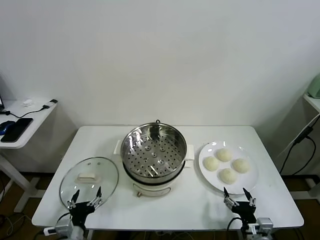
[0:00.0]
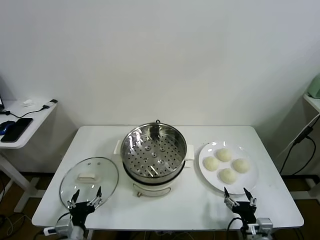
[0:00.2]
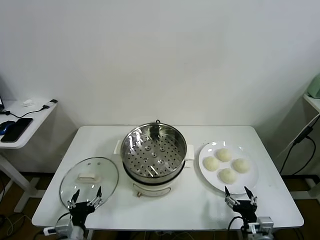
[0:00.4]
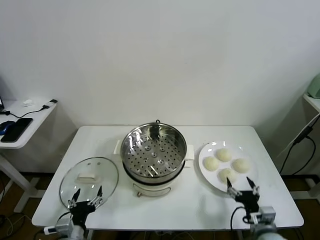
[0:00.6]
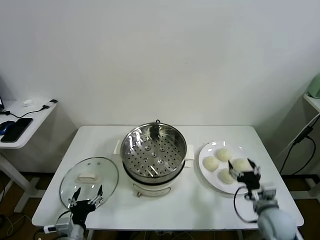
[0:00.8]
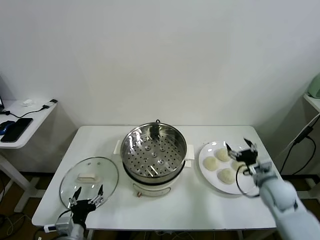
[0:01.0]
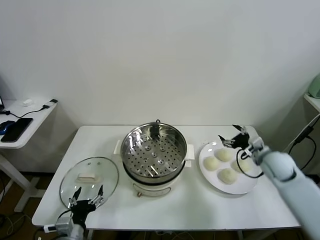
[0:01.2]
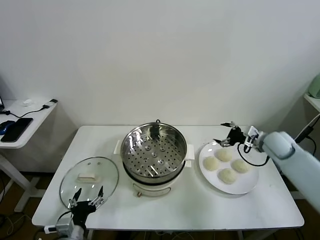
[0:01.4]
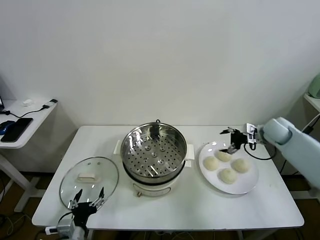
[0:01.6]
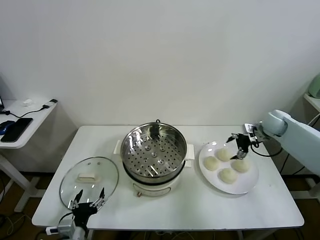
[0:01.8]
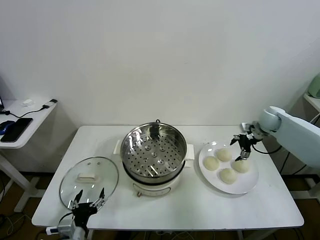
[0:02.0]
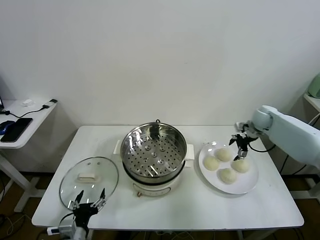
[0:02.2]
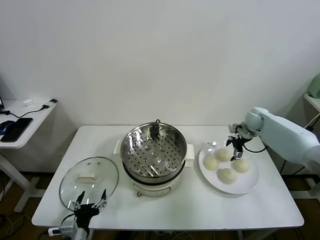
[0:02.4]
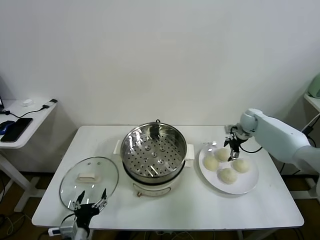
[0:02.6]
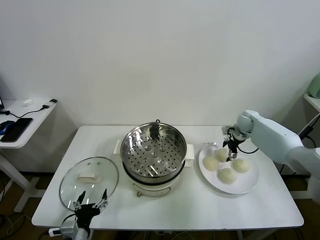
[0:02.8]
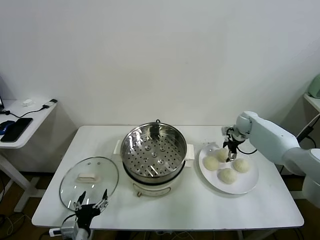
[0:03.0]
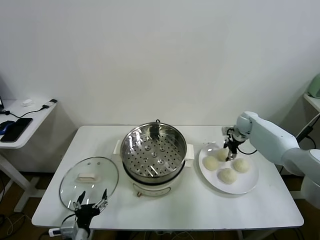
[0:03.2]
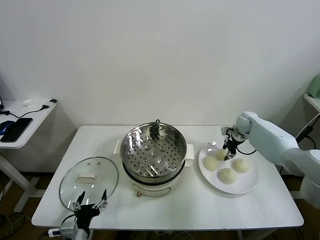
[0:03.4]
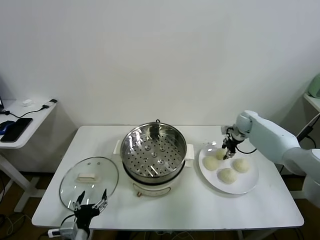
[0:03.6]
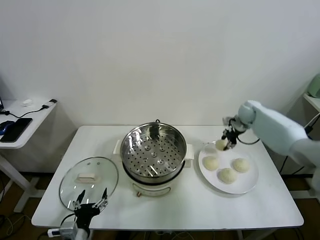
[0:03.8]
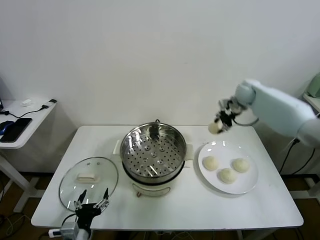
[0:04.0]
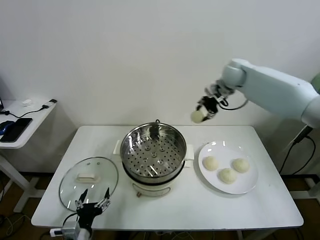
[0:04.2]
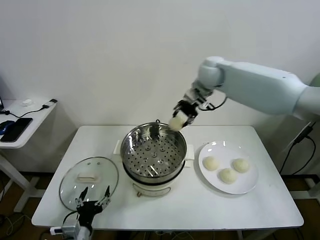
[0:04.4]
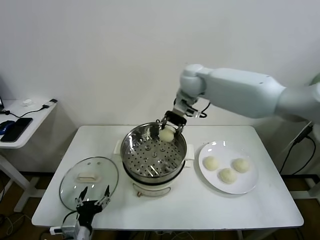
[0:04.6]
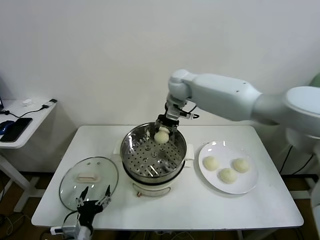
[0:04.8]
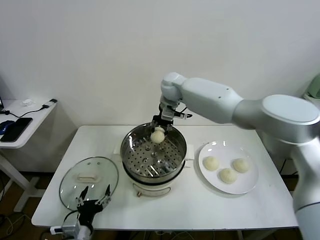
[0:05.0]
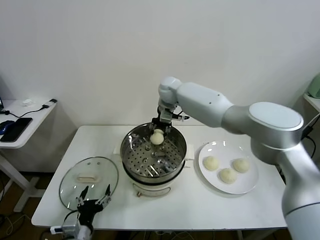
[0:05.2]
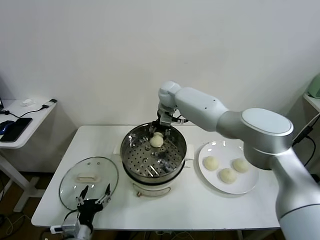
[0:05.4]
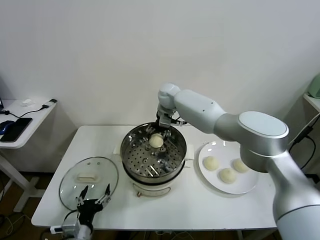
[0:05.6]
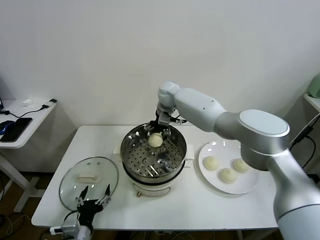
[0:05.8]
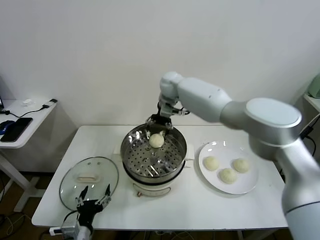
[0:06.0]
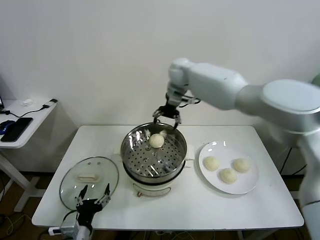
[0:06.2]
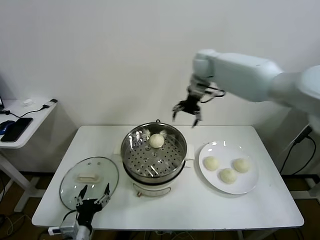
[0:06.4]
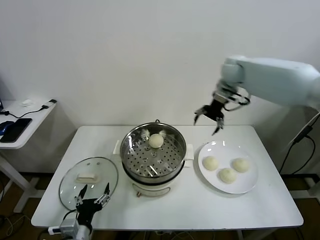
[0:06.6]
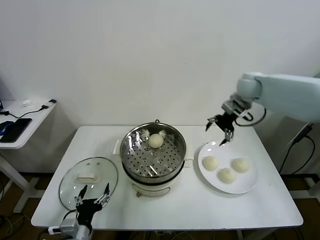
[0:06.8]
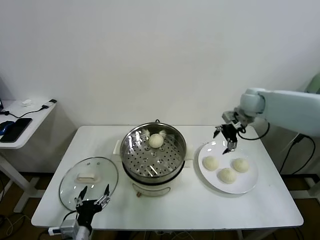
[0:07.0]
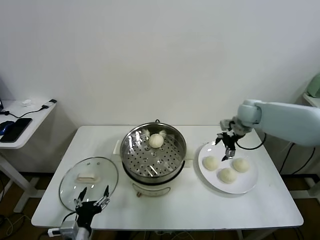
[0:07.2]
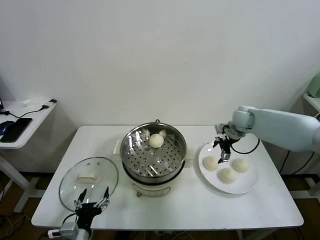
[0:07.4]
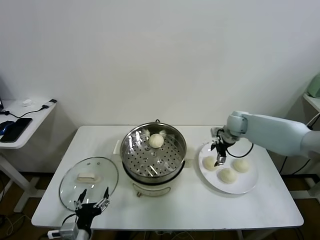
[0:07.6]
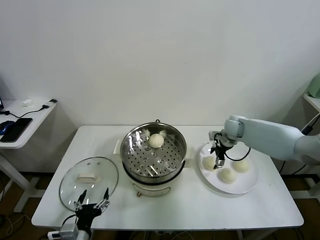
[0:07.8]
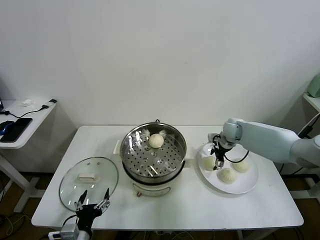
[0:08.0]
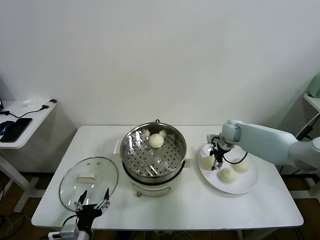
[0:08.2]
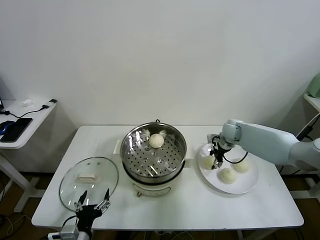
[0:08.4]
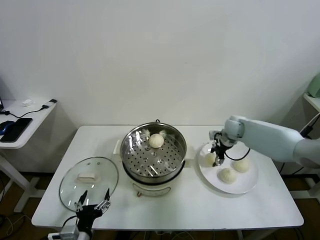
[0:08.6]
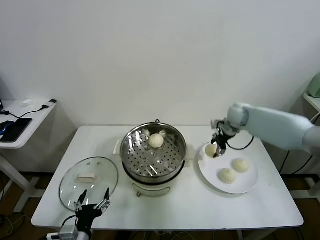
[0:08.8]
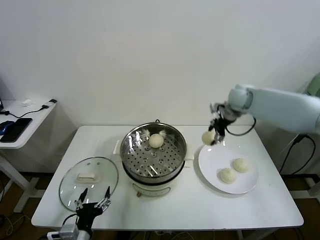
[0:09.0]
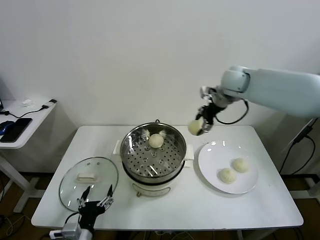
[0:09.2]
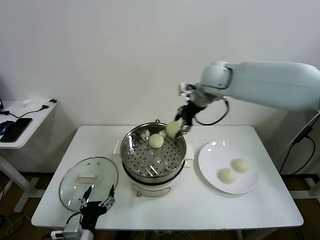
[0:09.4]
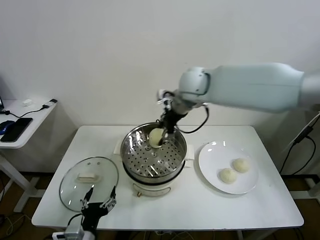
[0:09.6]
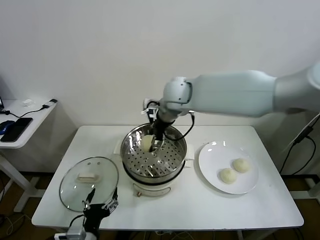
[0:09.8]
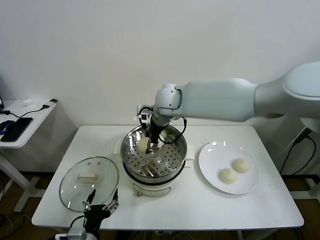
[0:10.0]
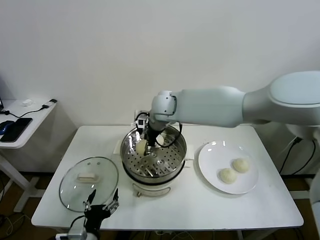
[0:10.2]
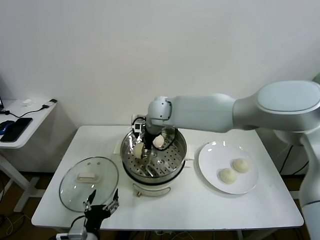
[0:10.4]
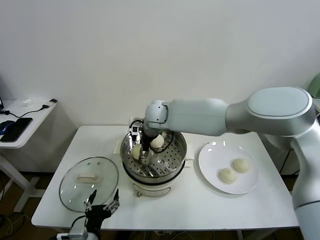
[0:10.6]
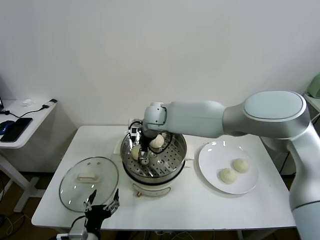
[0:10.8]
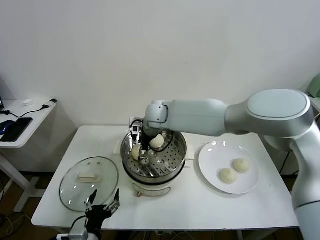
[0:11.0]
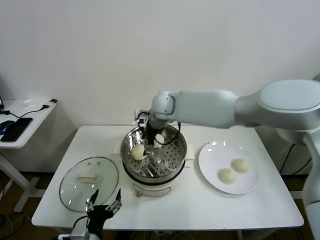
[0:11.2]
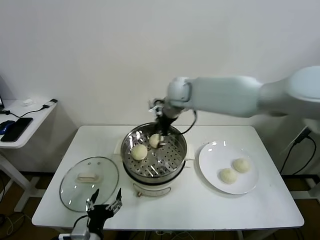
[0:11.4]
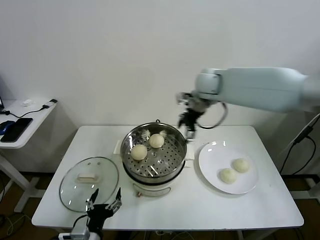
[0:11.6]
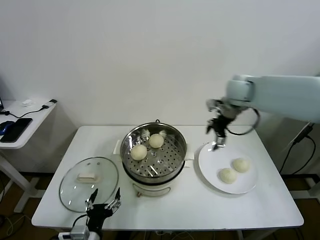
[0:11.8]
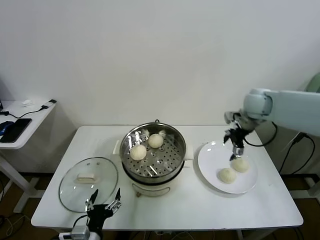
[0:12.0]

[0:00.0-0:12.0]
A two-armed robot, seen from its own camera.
Task of the whole recording: take steamed baozi put them in steamer.
Step, 0:00.0 to 0:03.2: Grasp the baozi in the plate with right gripper.
Step, 0:03.4 to 0:05.6: Place the baozi on the steamer with right gripper.
Step, 0:05.8 to 0:08.2: Grasp the baozi in the plate with right gripper.
Step, 0:08.4 to 0:10.8: Place the baozi on the steamer with right gripper.
0:01.6 to 0:03.0: The right gripper is displaced forward, downward and to the left by roughly 10 cm, and closes its fingers.
0:03.0 to 0:04.4: The right gripper heads to the left and upward, covering approximately 35 cm, and closes.
0:04.4 to 0:06.0: The right gripper is displaced forward by approximately 5 cm, goes downward and returns, roughly 10 cm each way, and opens its fingers.
0:06.0 to 0:07.6: The right gripper heads to the right and downward, covering about 30 cm.
0:07.6 to 0:09.0: The right gripper goes approximately 20 cm upward, and closes up.
0:09.0 to 0:10.4: The right gripper moves to the left, approximately 25 cm.
0:10.4 to 0:12.0: The right gripper goes approximately 35 cm to the right, and opens.

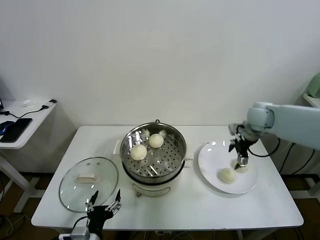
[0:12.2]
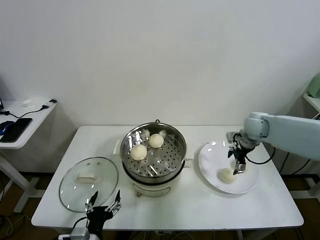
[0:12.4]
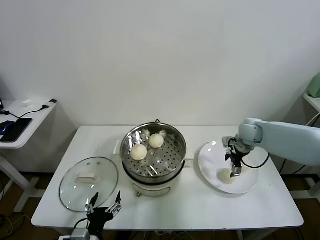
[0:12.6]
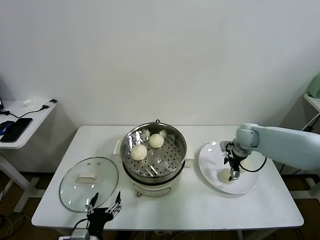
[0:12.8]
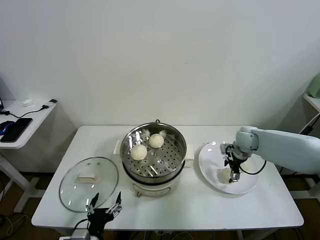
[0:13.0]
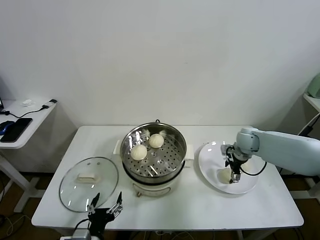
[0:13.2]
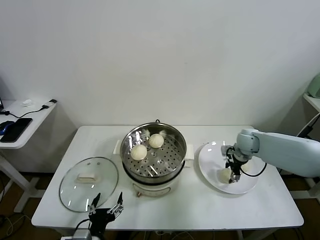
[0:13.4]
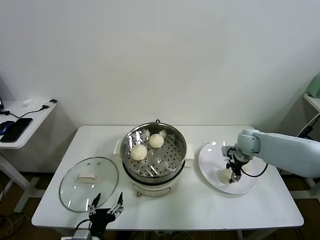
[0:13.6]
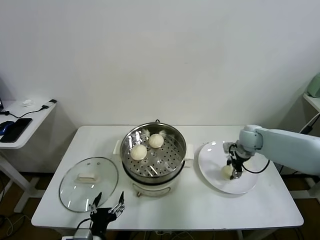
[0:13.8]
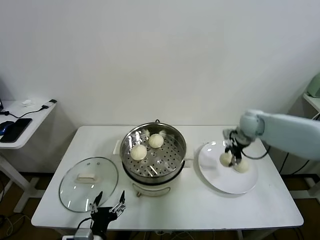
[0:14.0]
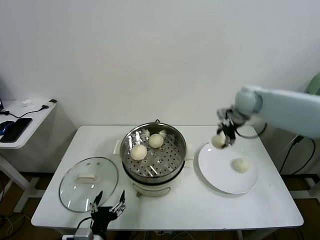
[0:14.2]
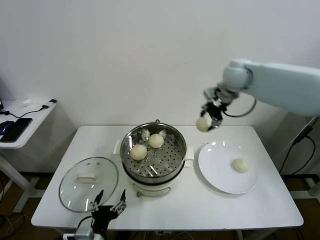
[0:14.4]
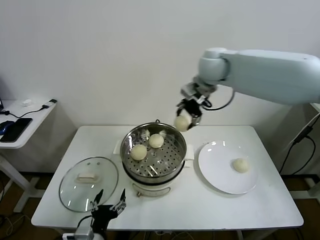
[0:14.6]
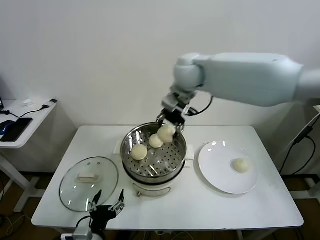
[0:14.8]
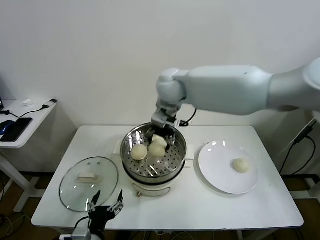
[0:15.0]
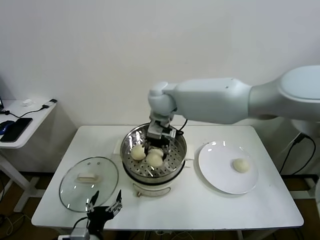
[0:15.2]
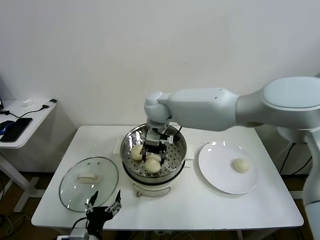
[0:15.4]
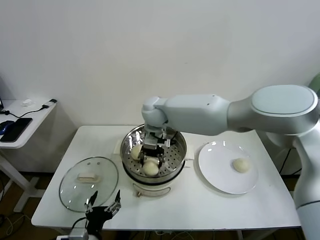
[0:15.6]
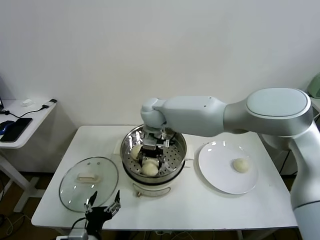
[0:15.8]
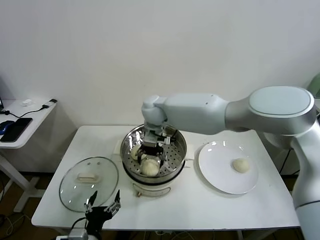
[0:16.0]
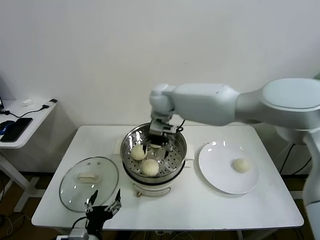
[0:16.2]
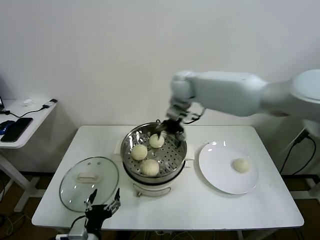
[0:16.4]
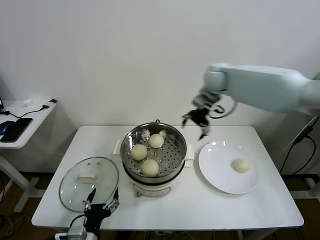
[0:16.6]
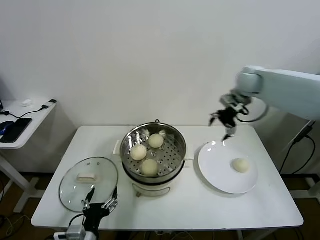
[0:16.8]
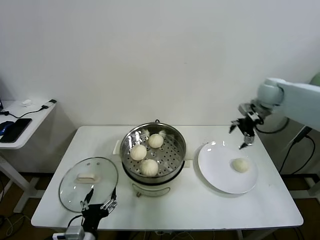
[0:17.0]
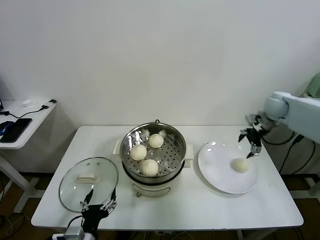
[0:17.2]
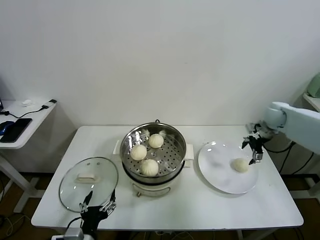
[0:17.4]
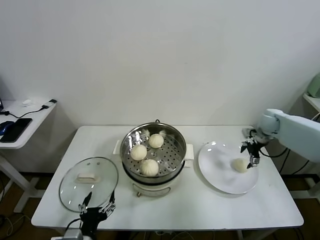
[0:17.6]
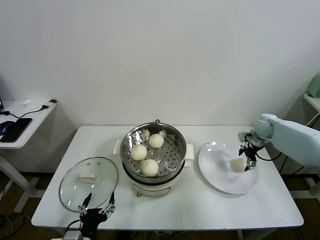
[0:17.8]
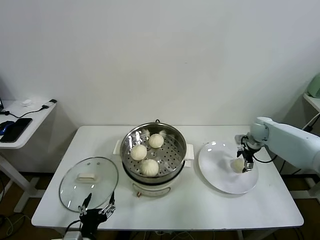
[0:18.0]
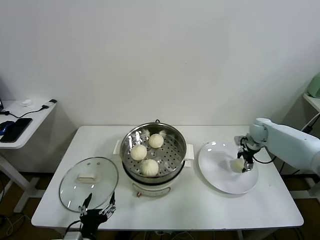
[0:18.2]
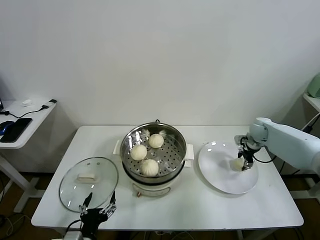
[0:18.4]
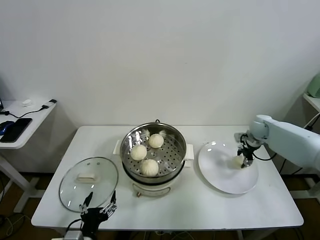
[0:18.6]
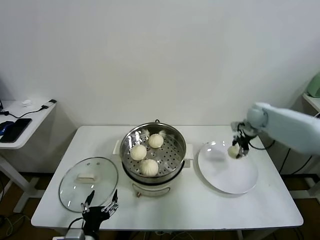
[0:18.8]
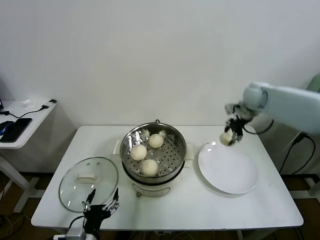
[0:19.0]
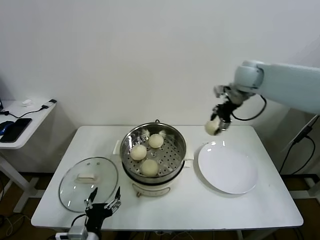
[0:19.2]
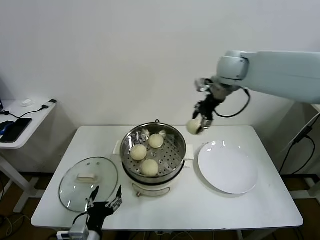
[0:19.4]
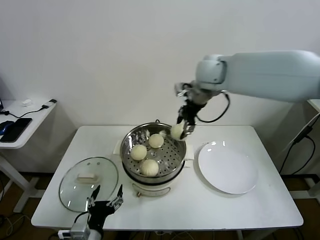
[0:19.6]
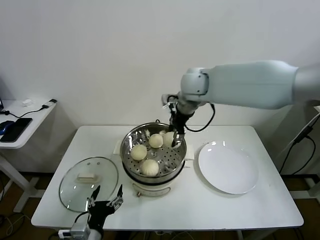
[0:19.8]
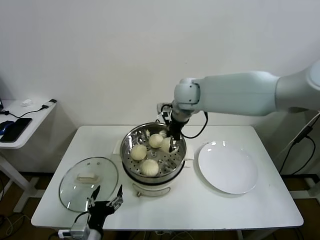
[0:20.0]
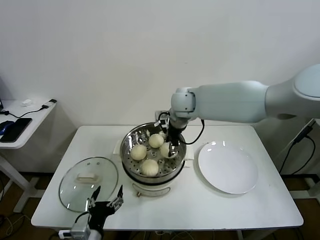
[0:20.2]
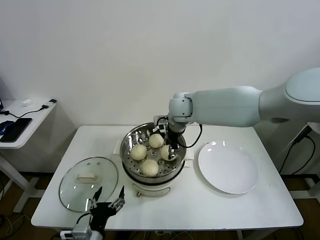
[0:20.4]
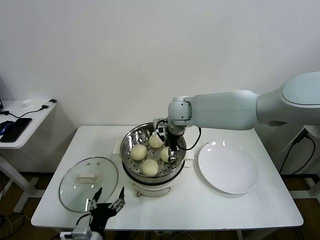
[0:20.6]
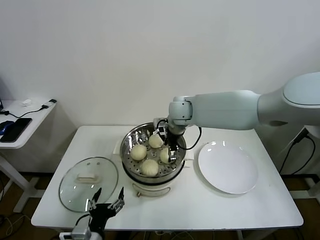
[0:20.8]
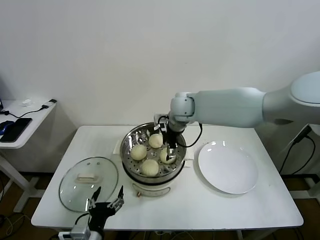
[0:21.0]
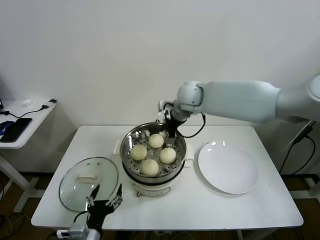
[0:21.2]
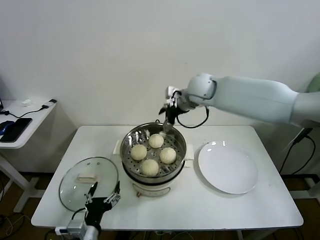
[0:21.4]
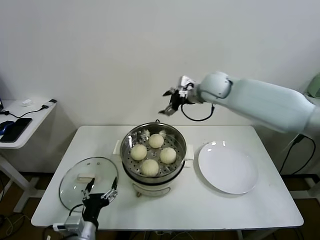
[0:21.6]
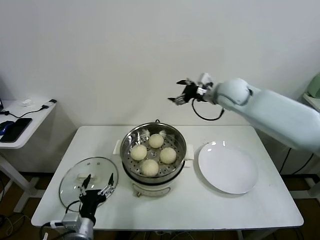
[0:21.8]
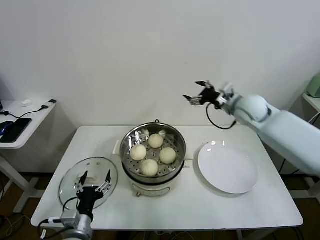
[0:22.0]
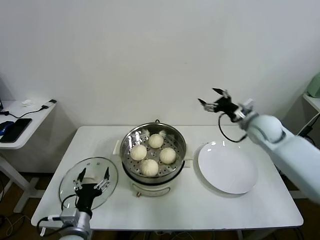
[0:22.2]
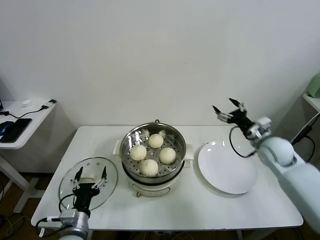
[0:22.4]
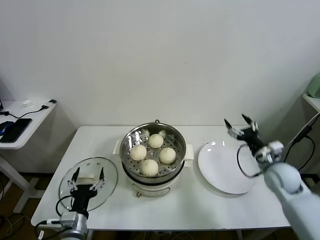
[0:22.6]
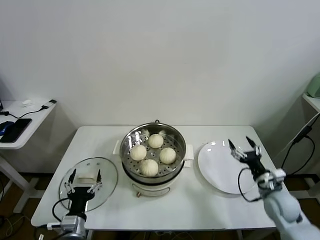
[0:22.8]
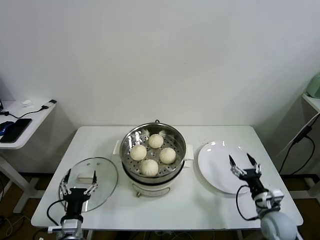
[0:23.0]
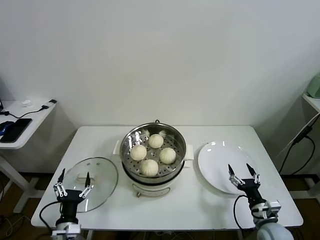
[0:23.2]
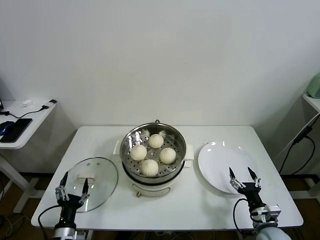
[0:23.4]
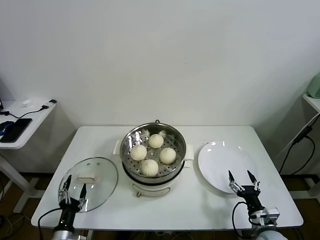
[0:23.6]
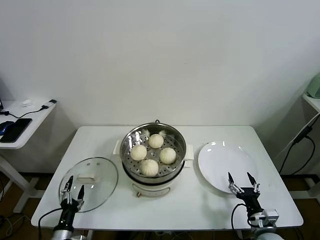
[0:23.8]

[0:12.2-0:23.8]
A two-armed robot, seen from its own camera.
Task of the whole recording: take steamed baozi put them in steamer.
Step, 0:13.4 to 0:16.0: Place the baozi on the steamer with right gripper.
Step, 0:16.2 to 0:18.2: Grasp the baozi in the plate with right gripper.
Step, 0:18.4 to 0:20.6: Place the baozi on the steamer with right gripper.
0:12.2 to 0:13.6: The right gripper moves downward, approximately 10 cm, and closes up.
0:13.6 to 0:15.0: The right gripper shifts roughly 40 cm to the left and upward.
0:15.0 to 0:16.6: The right gripper heads to the right, covering some 20 cm, and opens its fingers.
0:16.6 to 0:18.0: The right gripper heads downward and to the right, covering approximately 30 cm.
0:18.0 to 0:19.4: The right gripper travels upward and to the left by some 35 cm, and closes its fingers.
0:19.4 to 0:21.0: The right gripper moves downward and to the left, approximately 15 cm, and opens.
0:21.0 to 0:22.4: The right gripper goes about 35 cm to the right, downward and backward, while the left gripper ends up some 5 cm from where it was.
0:22.4 to 0:23.8: The left gripper goes approximately 15 cm downward and to the left. The right gripper moves backward and downward, about 30 cm.
